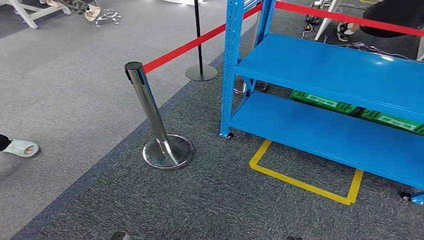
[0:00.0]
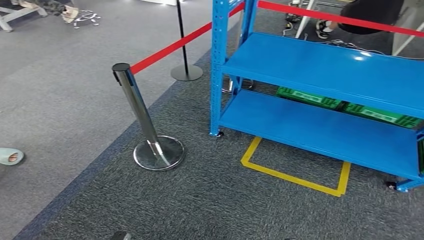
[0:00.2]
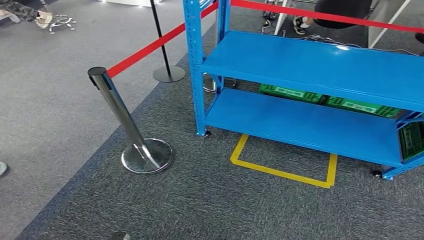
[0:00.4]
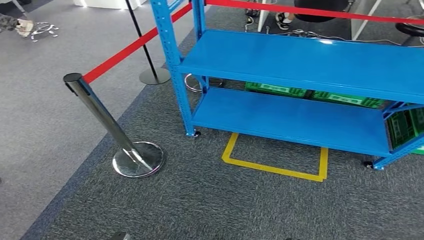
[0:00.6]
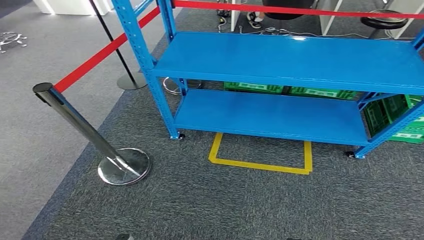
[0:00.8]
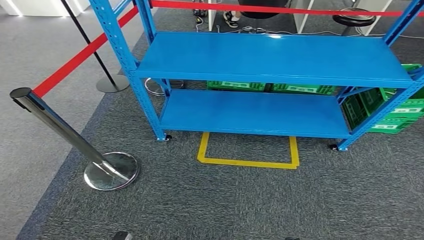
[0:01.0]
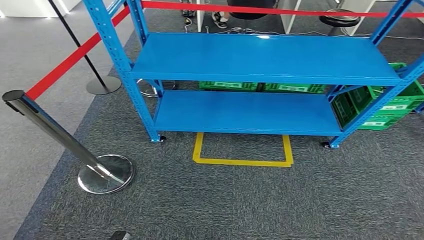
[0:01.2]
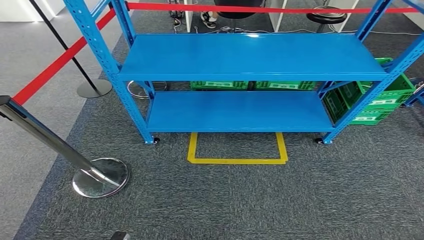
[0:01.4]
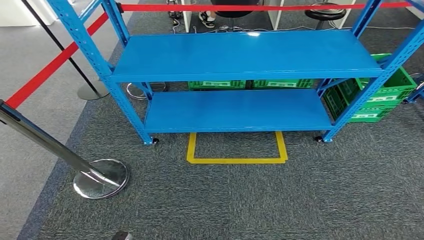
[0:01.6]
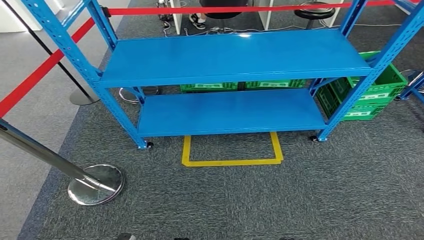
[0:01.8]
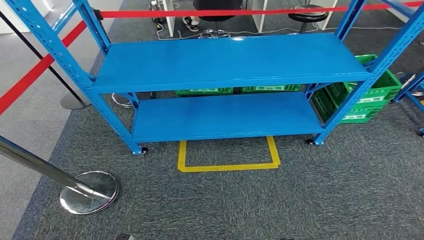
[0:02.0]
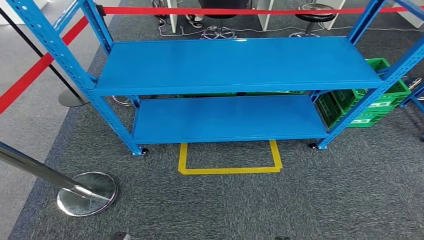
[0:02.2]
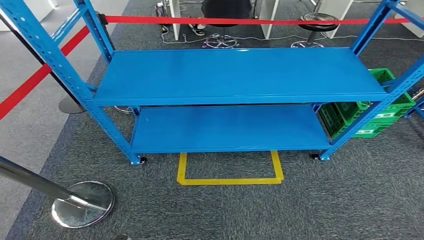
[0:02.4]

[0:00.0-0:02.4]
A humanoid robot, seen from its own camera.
Step, 0:00.0 to 0:02.4: Return to the initial position at the workbench.
